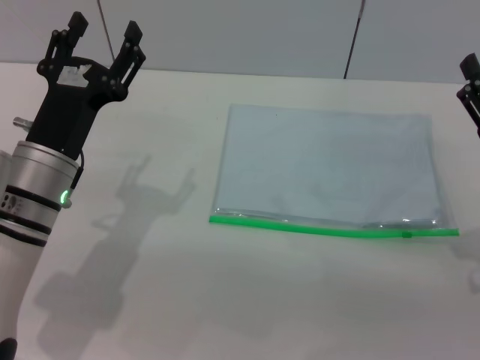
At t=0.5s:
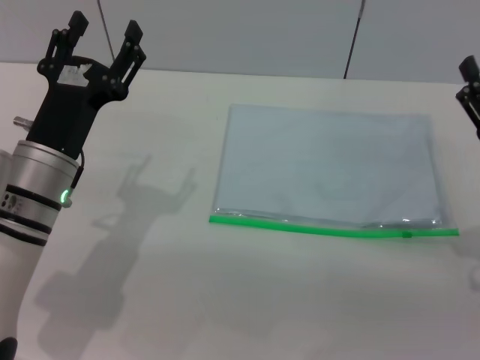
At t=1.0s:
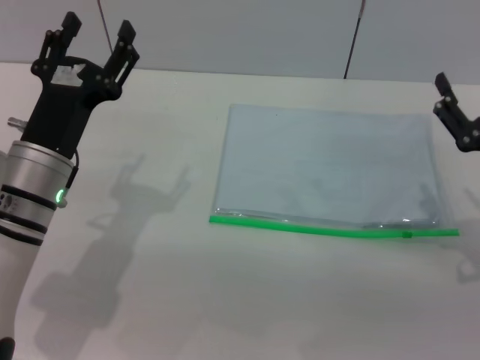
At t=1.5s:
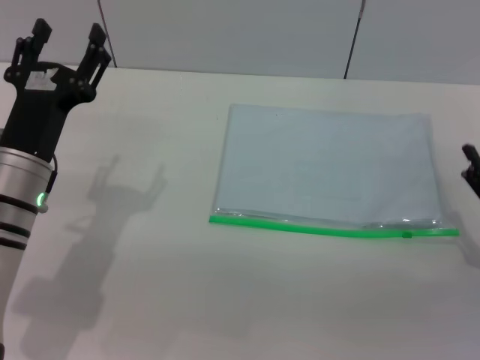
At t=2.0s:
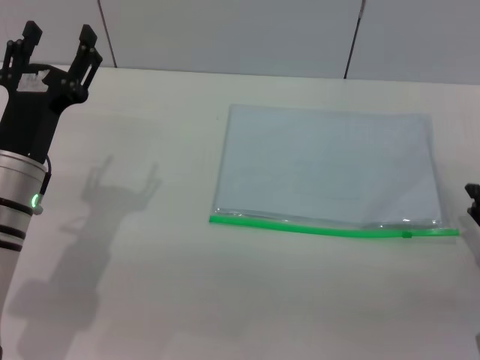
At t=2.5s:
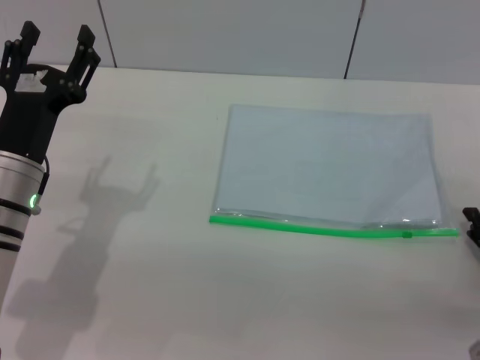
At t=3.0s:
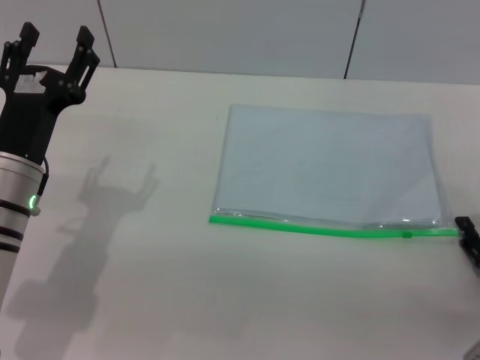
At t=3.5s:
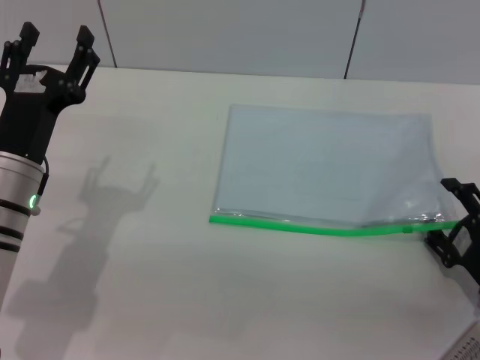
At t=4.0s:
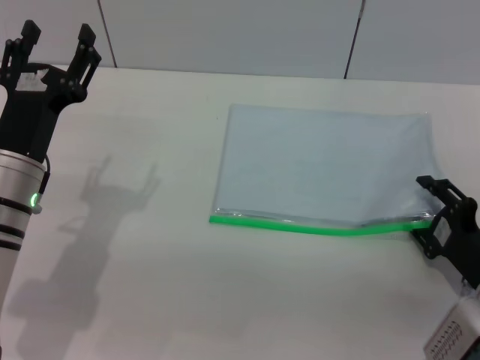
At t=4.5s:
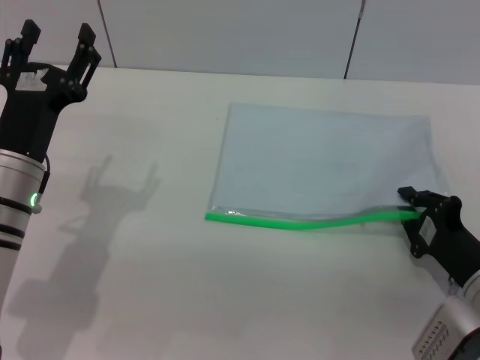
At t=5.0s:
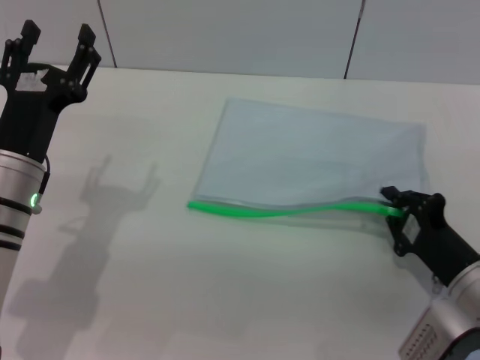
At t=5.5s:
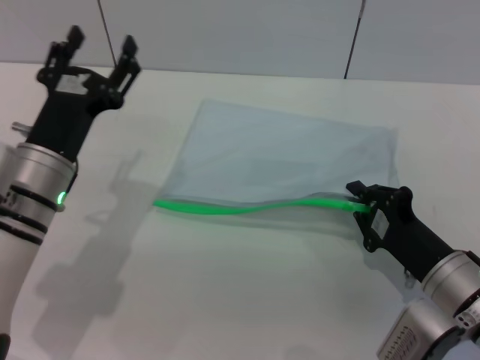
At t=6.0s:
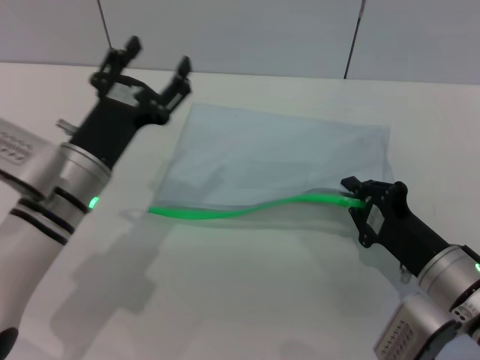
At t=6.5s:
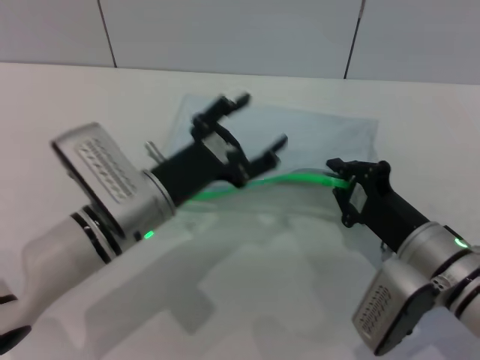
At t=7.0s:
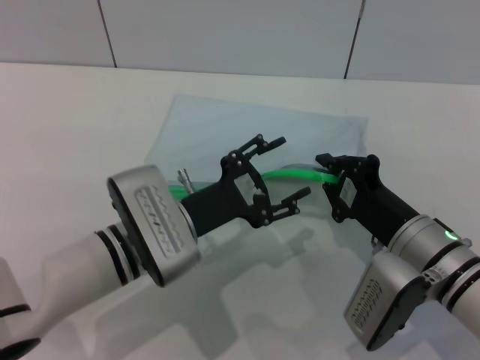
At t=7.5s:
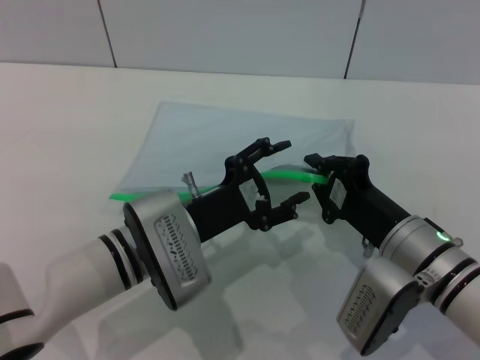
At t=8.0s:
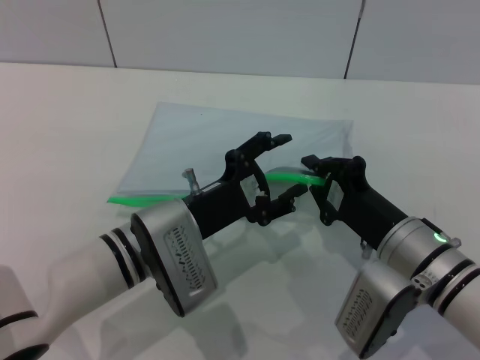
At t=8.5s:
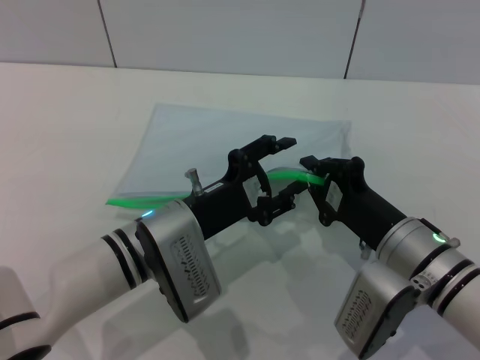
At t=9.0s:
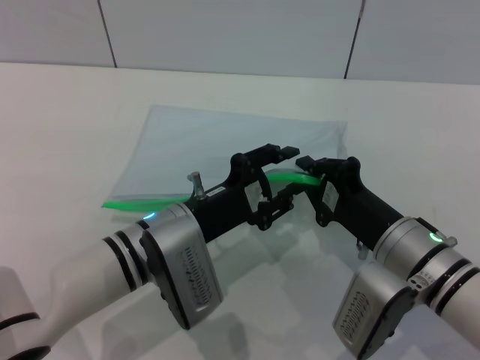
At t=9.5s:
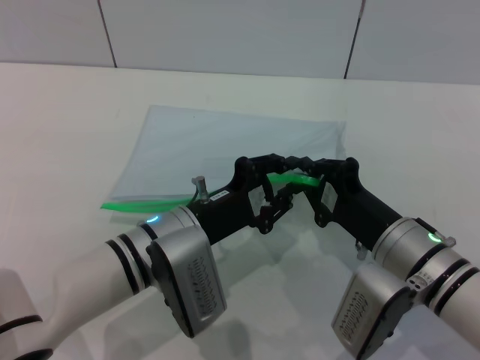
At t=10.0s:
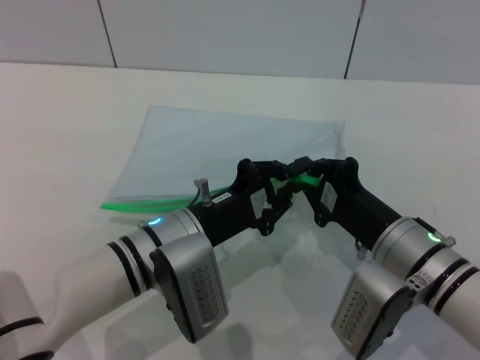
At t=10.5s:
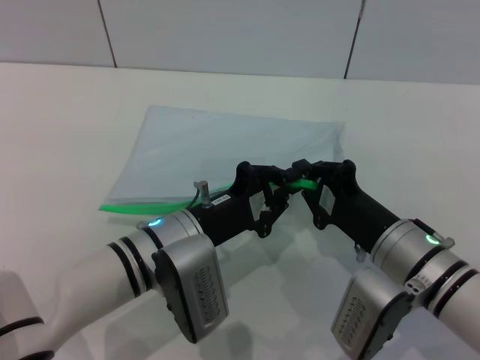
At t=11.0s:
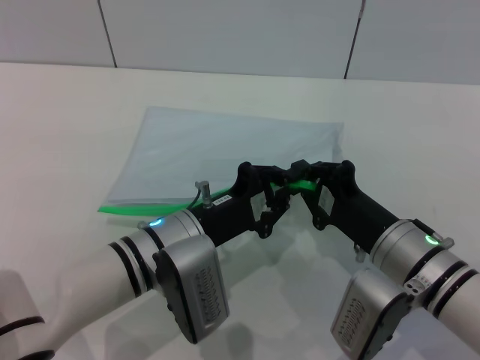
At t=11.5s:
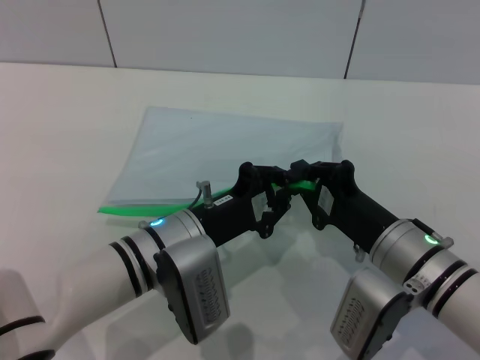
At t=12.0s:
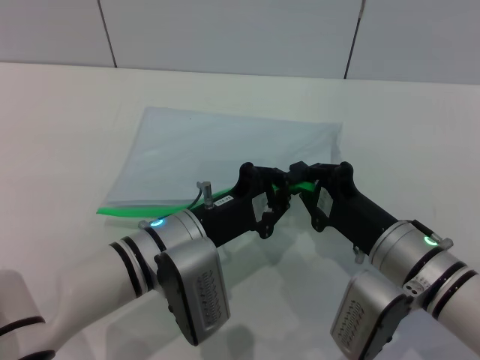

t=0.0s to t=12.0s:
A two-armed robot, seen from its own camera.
Step, t=0.0s to t=6.0s: Pick up the transparent plastic bag with the right gripper.
t=0.0s to t=2.0s: The right gripper travels downward by about 5 cm.
t=2.0s to t=4.0s: There are only small adjustments of the grippers.
t=4.0s to t=6.0s: The right gripper goes about 5 cm to the left, and closes.
t=6.0s to t=8.0s: The right gripper shifts by roughly 5 cm, while the left gripper goes some 5 cm to the right.
t=8.0s to t=10.0s: The left gripper closes its fingers.
t=10.0s to t=12.0s: Both grippers stay put.

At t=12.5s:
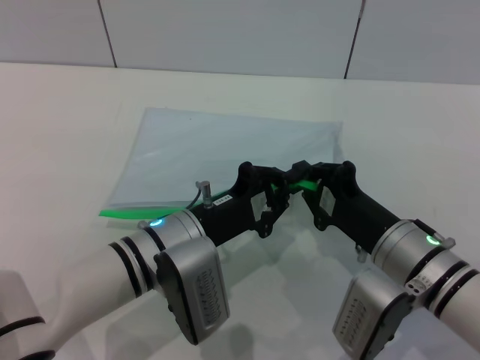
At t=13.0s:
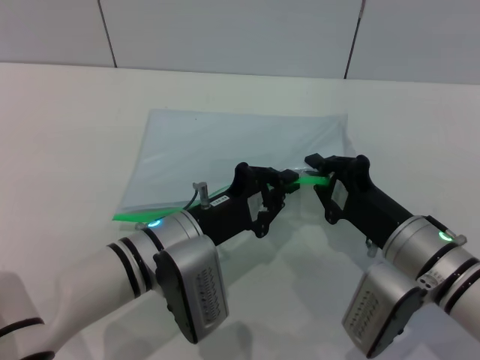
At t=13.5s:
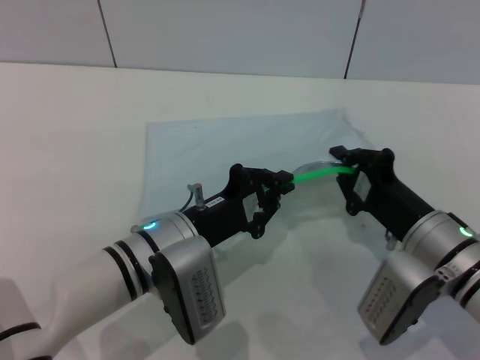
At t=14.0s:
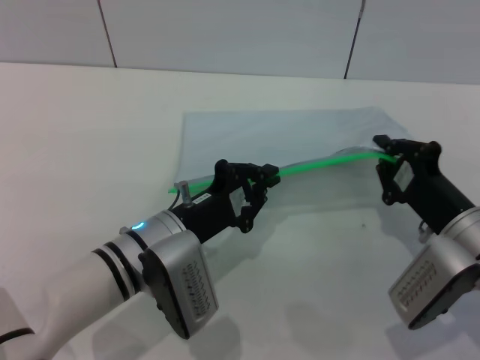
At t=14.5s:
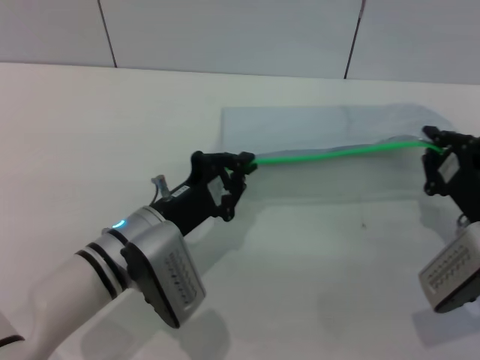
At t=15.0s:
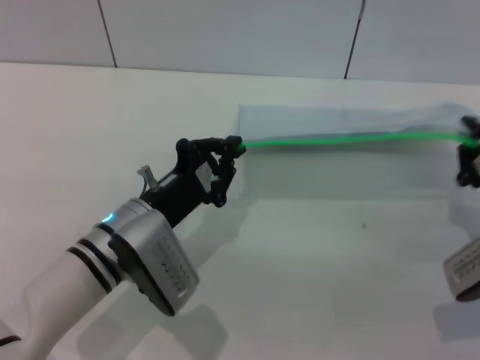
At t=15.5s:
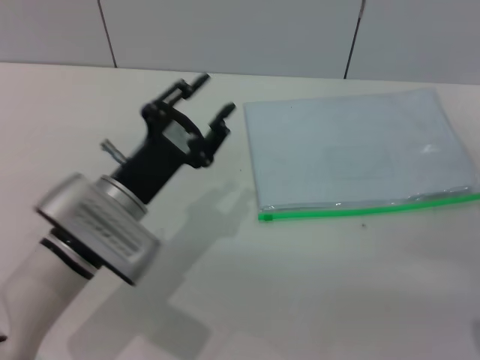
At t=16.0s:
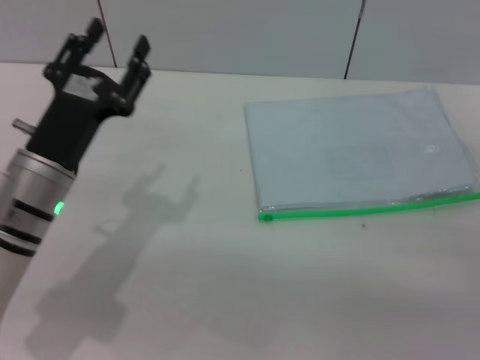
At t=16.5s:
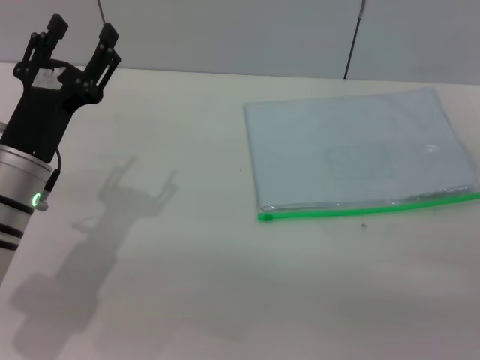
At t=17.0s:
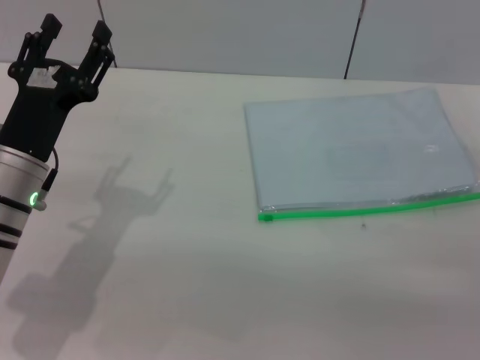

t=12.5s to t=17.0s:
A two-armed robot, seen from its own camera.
Step, t=12.5s to t=15.0s: Pulling up the zipper on the transparent plastic bag with the left gripper to close it.
t=12.5s to t=14.5s: The right gripper shifts some 10 cm to the right.
t=14.5s to t=17.0s: The left gripper is displaced to the left and upward by approximately 10 cm, and opens up; the right gripper travels upward by roughly 5 cm, and opens.
